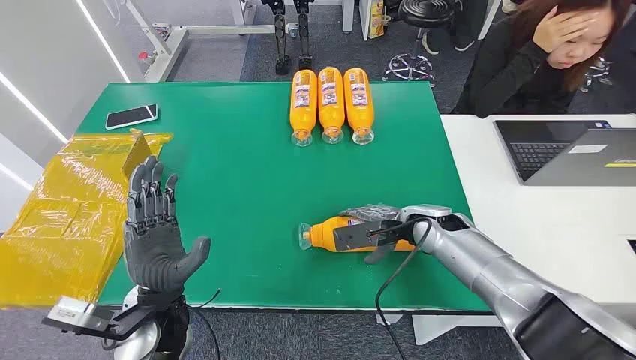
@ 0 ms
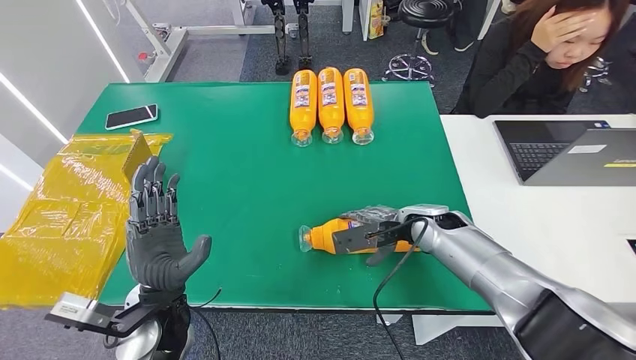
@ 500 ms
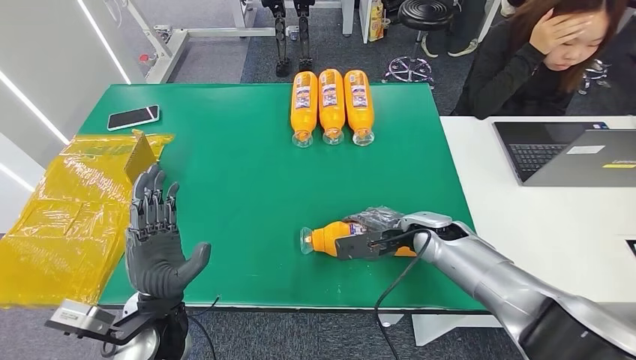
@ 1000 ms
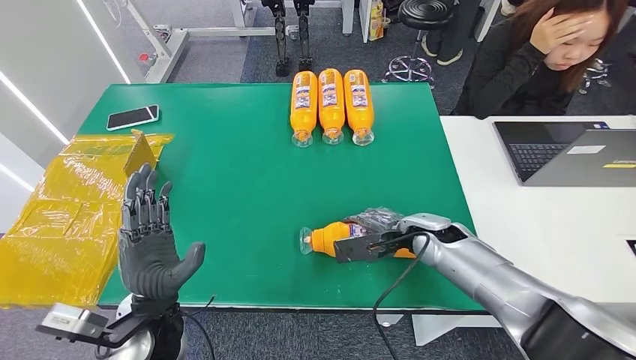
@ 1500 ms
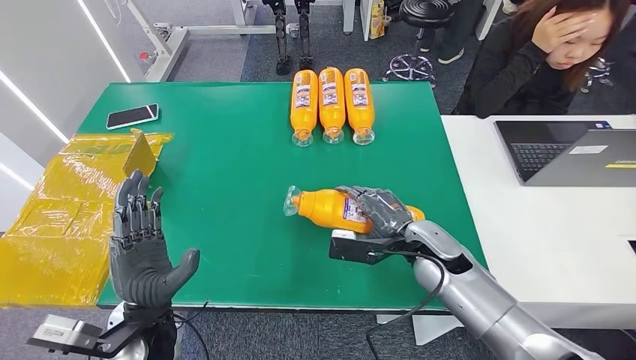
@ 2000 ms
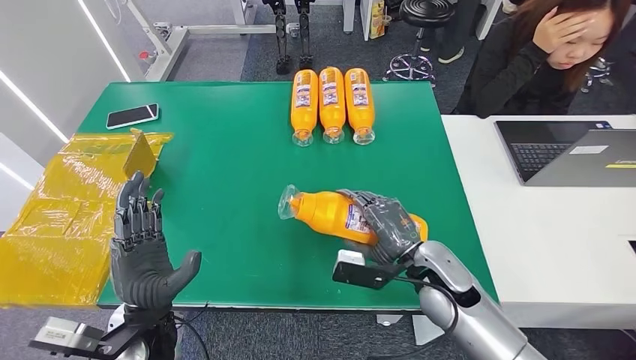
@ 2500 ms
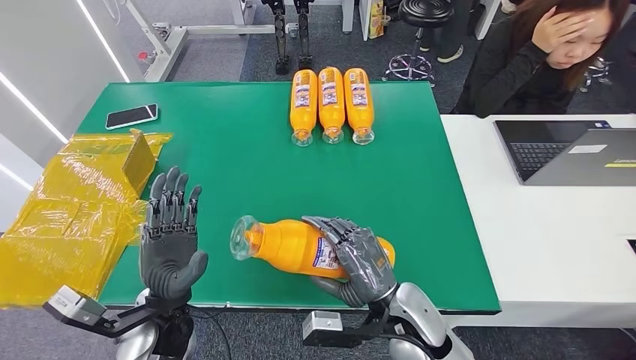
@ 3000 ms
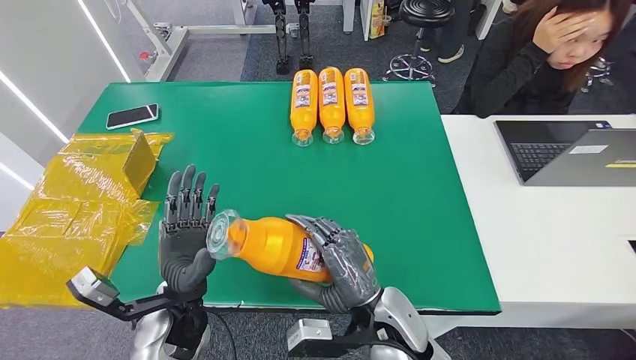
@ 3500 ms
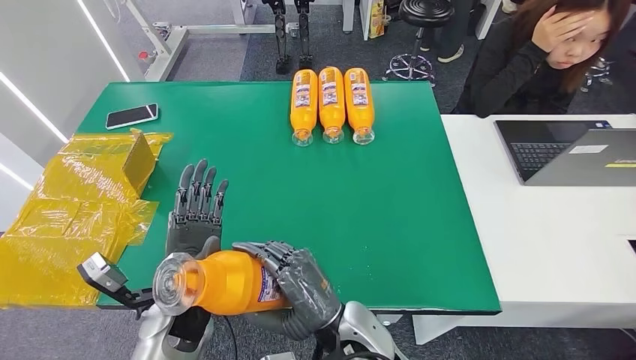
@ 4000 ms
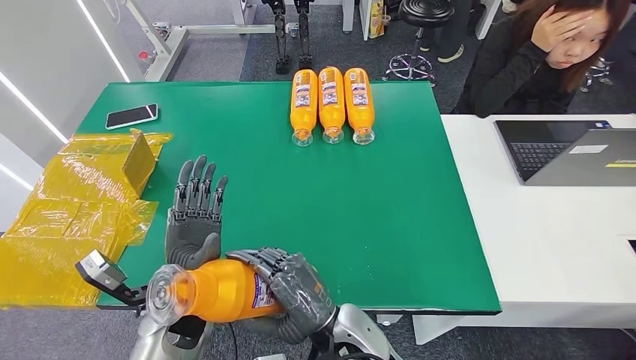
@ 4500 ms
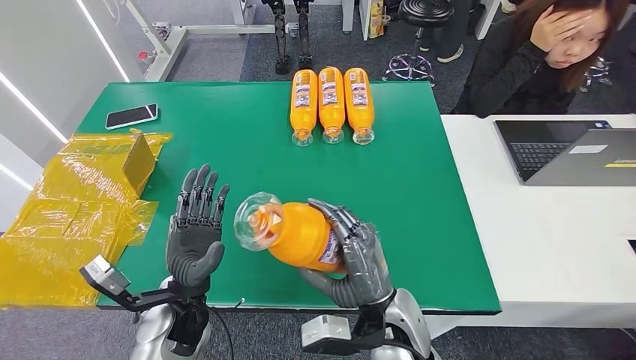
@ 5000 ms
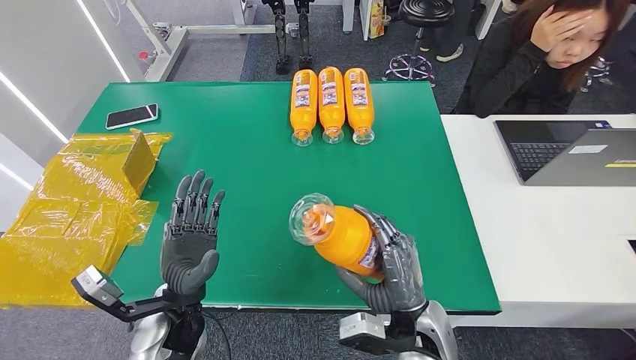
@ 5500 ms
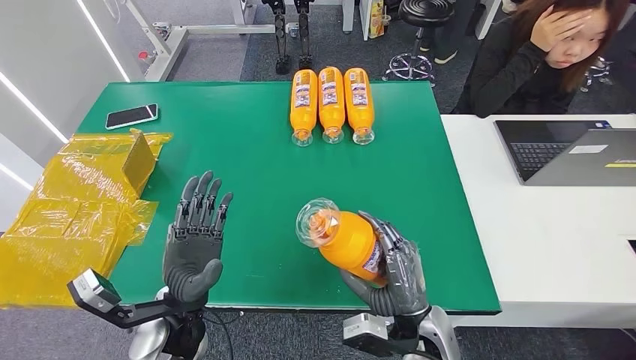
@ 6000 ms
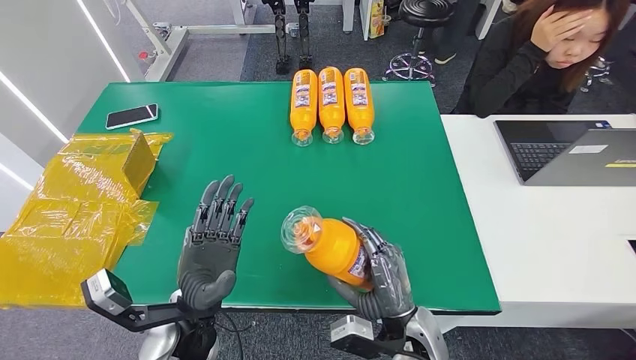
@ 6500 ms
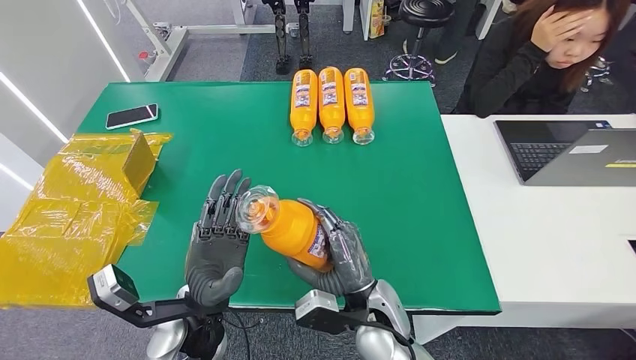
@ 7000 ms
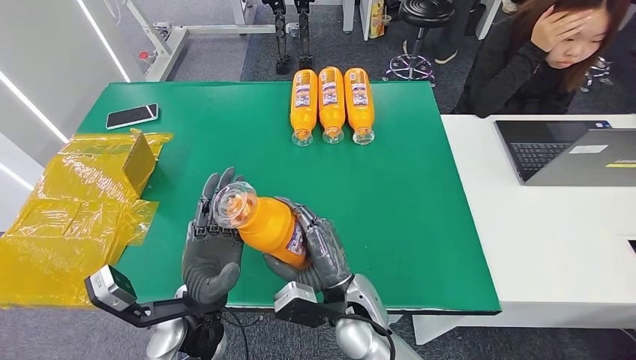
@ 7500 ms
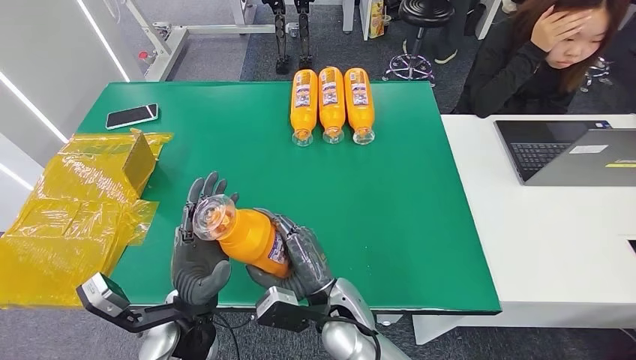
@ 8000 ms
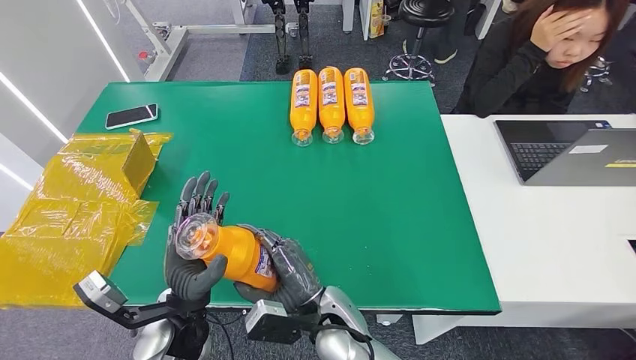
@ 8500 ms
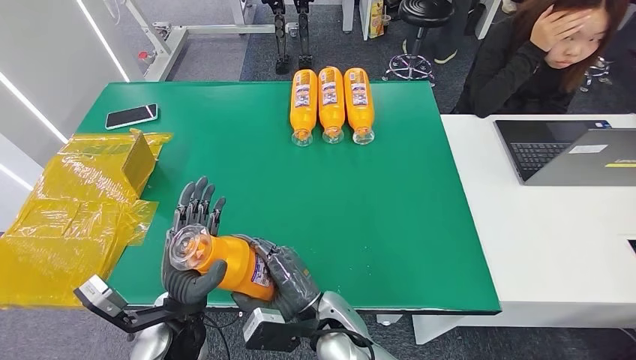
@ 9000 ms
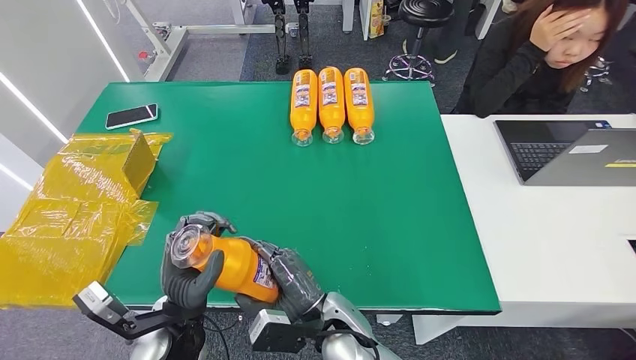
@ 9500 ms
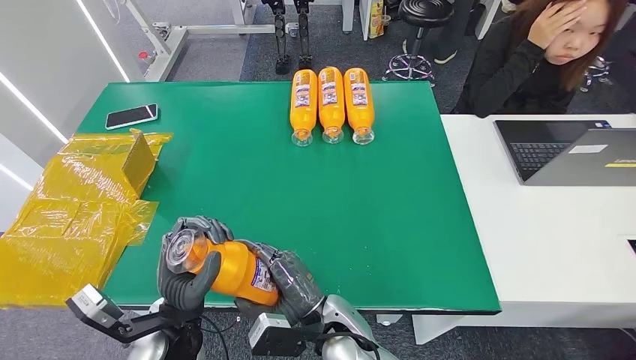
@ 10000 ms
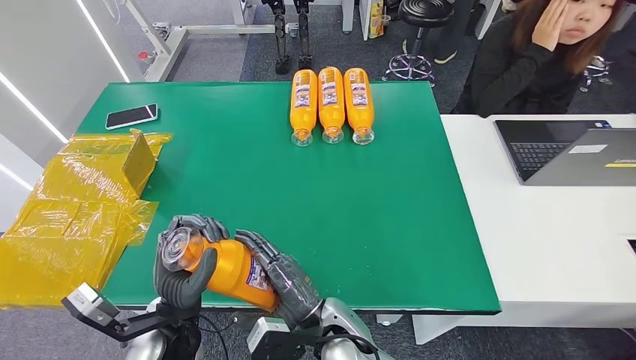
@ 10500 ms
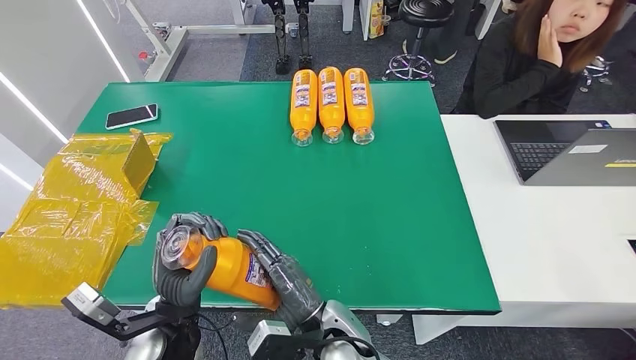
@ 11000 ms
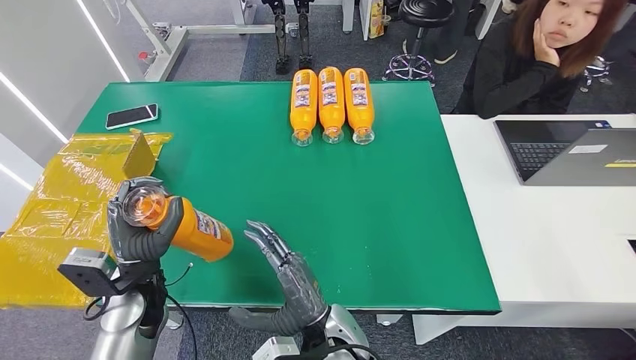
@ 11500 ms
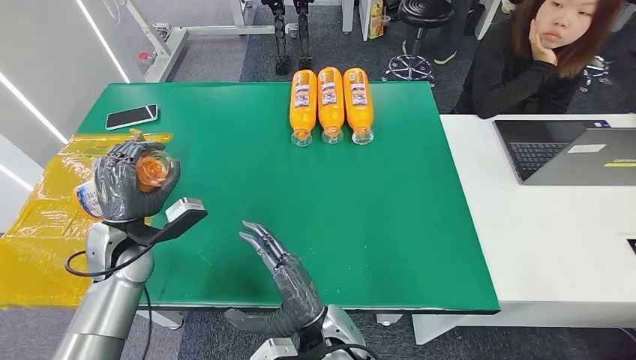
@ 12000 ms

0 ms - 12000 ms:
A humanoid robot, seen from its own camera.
Step, 0 ms - 4500 ms: Pick up the bottle from the table.
2000 ms - 4000 ms: The left hand shifts by roughly 5 cm; the right hand goes some 20 cm to the left and backward.
4000 ms - 6000 ms: The right hand moves to the right, roughly 10 cm.
6000 ms - 8000 ms: The right hand travels to the left by roughly 10 cm.
8000 ms - 10000 ms: The hands move only a little.
10000 ms - 12000 ms: The left hand is displaced forward and to the left by about 20 cm.

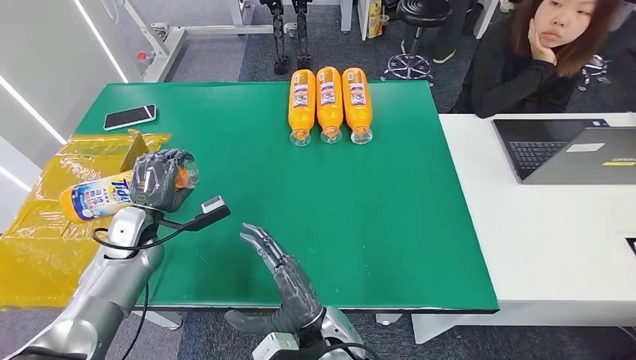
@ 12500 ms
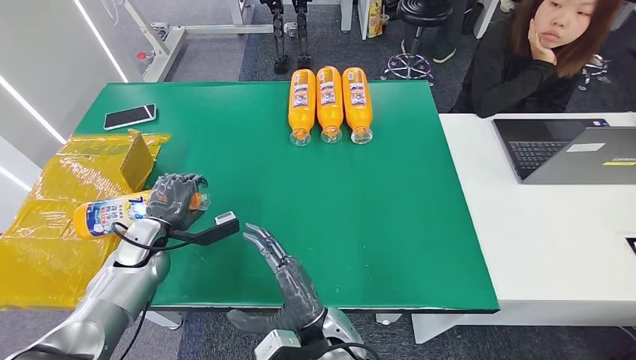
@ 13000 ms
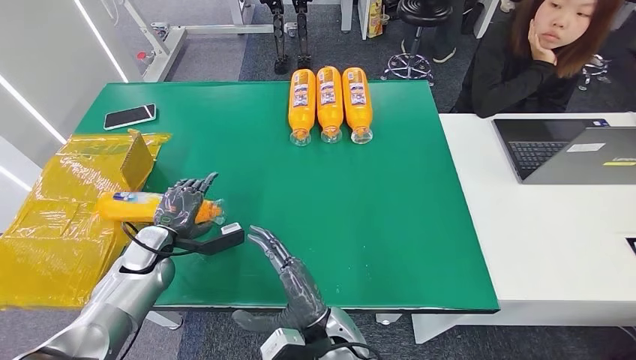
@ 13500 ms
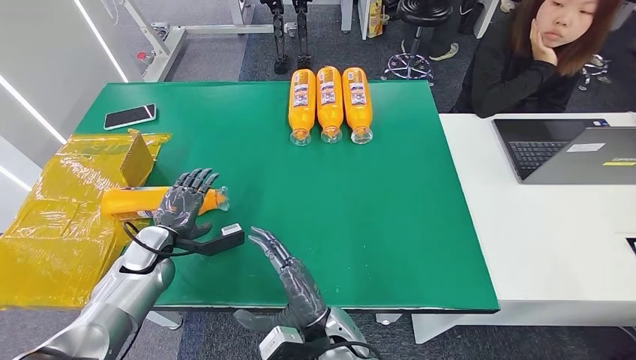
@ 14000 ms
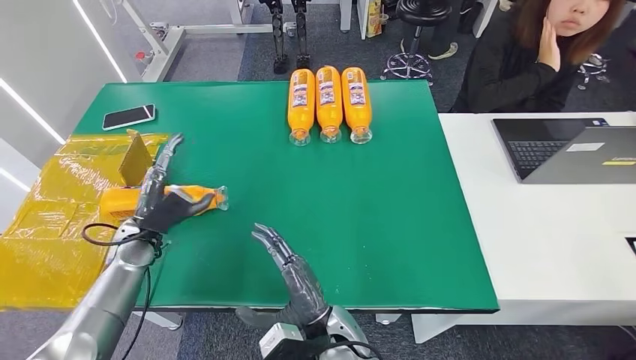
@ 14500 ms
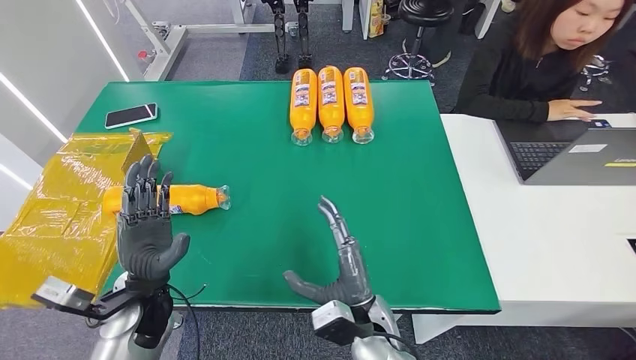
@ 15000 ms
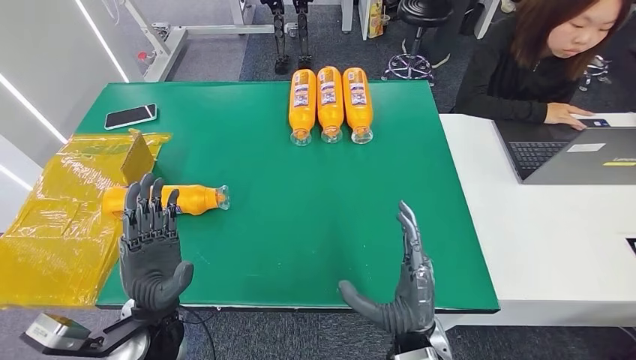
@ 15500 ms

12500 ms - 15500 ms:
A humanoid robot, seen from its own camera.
Step, 12500 ms - 15500 ms: Turn the bottle to the front side.
12500 ms - 14000 ms: The left hand ends up some 5 cm from where it was.
14000 ms - 15500 ms: The left hand moves to the right and backward, some 15 cm. Meanwhile the right hand shifts some 10 cm to the right.
